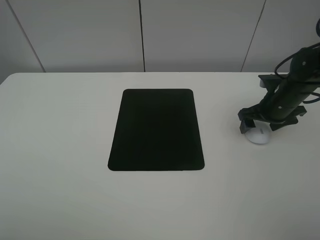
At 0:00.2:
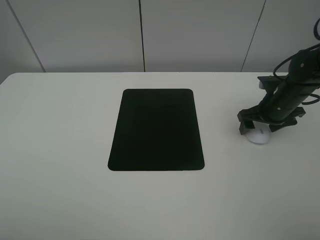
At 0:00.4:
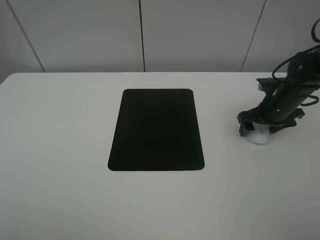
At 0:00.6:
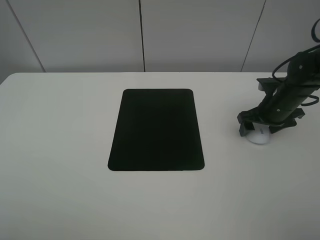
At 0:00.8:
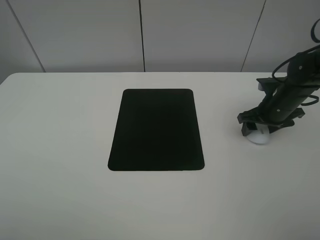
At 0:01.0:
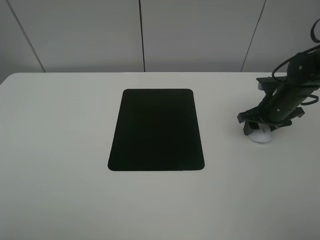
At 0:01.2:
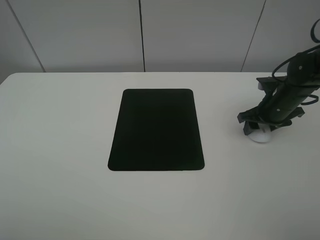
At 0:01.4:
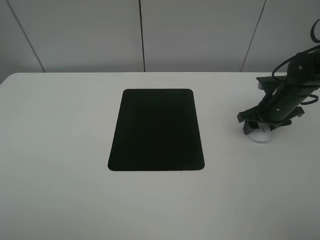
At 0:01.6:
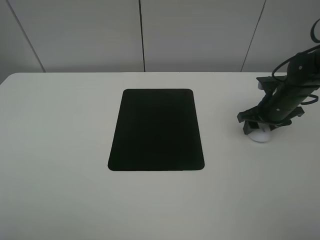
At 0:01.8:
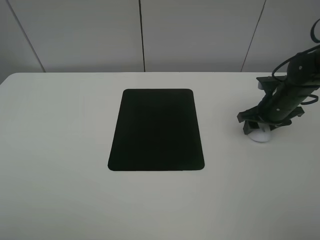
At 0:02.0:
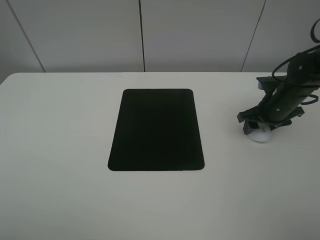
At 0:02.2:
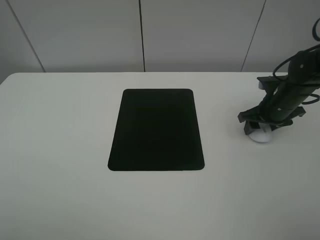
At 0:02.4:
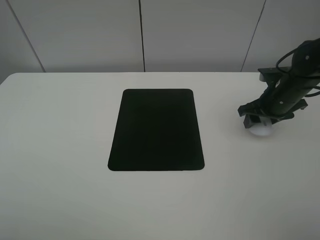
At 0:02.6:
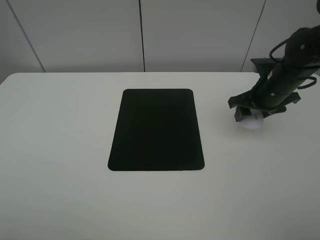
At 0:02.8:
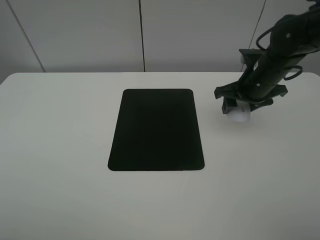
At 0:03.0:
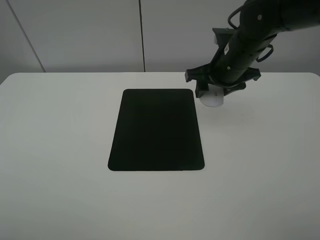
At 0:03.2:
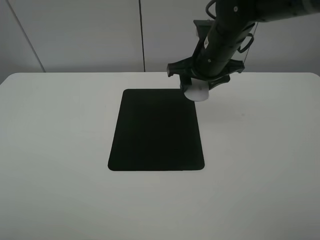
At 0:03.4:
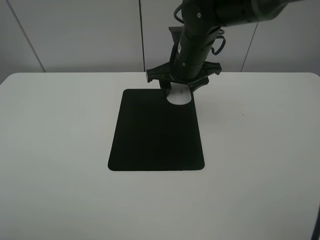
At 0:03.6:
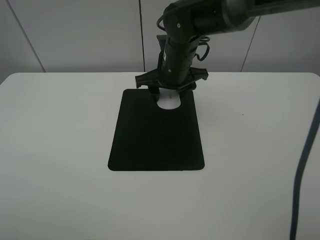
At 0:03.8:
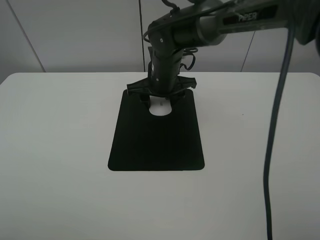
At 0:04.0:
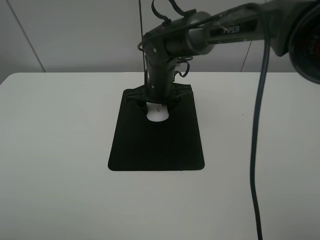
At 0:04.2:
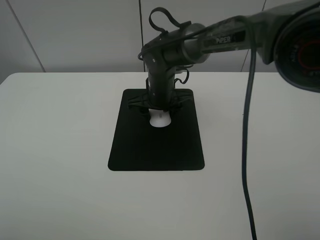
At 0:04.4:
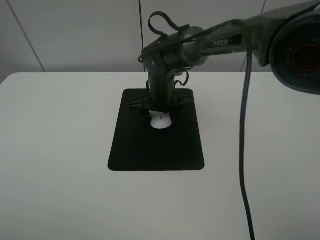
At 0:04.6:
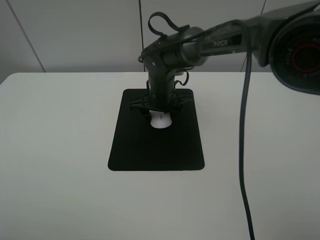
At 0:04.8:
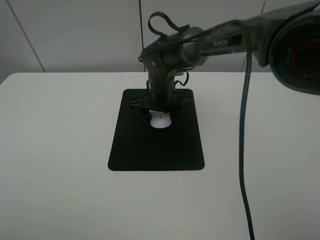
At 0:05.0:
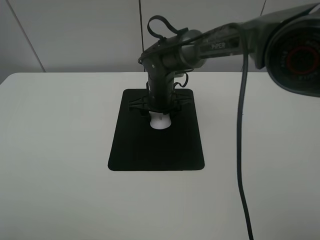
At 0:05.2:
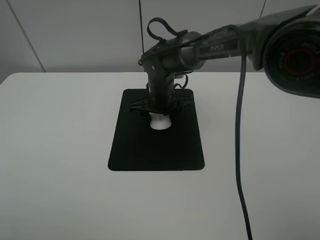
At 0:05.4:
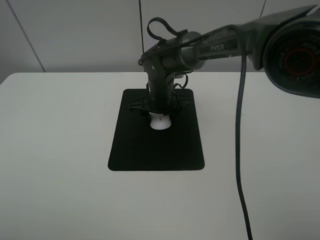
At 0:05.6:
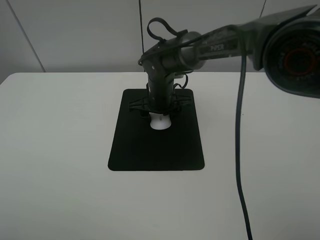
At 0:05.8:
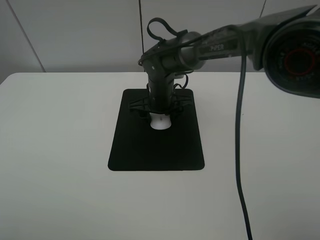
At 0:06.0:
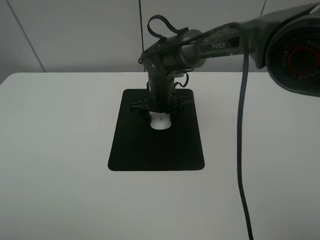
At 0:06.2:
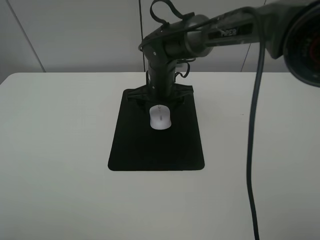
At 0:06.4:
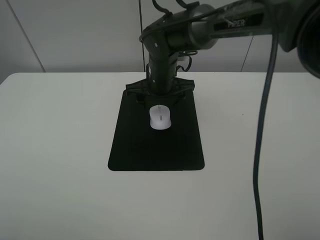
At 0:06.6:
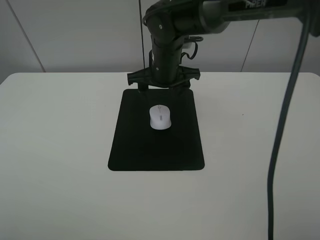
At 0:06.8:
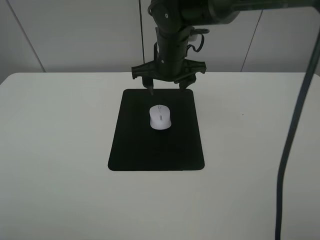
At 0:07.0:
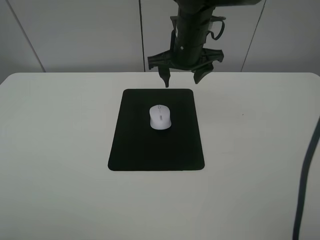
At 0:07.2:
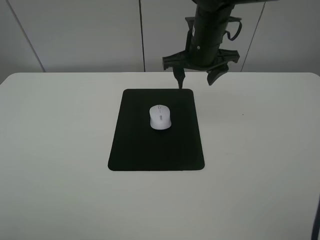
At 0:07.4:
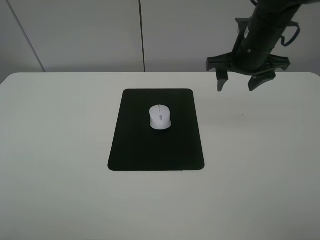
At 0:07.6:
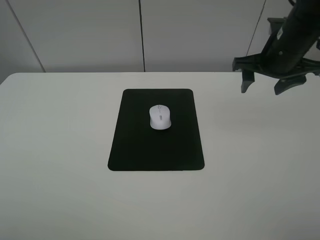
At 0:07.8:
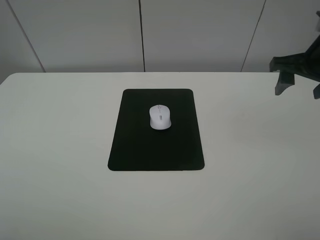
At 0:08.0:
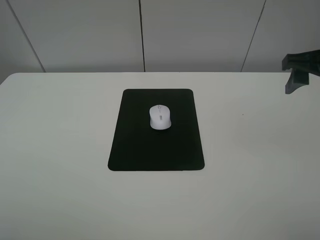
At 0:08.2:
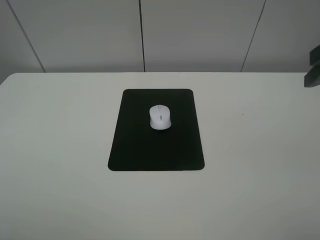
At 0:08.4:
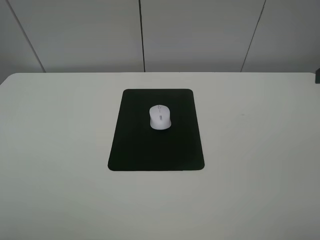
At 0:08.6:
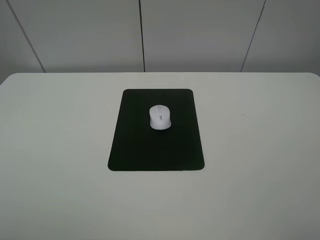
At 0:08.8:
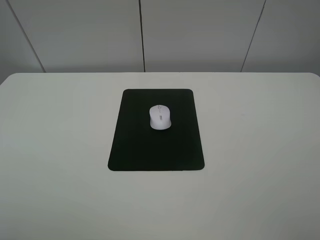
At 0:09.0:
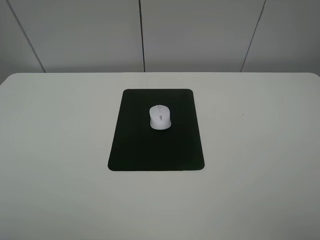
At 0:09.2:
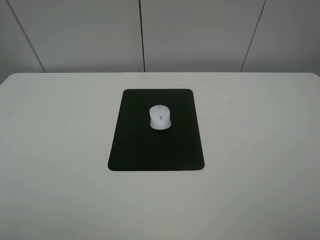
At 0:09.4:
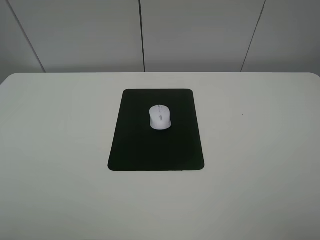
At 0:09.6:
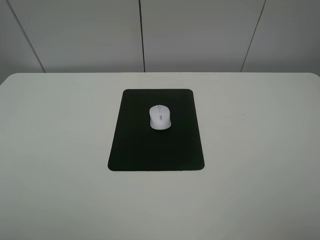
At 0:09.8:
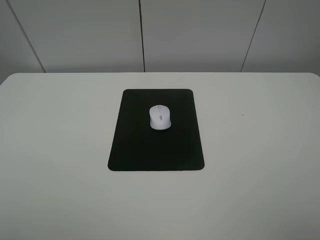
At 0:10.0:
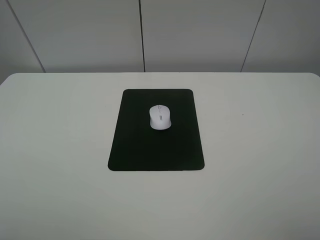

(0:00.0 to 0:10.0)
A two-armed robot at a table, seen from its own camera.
Step, 0:01.6 - 0:05.6: Place the mouse on the mouse mat with the right gripper.
0:00.0 - 0:01.4: The right gripper closes.
0:01.4 - 0:02.8: The right gripper moves to the left and upward, some 10 cm.
0:02.8 - 0:04.2: The right gripper travels to the left by some 20 cm.
0:04.2 - 0:05.8: The right gripper opens up.
0:05.8 - 0:07.2: The right gripper travels upward and to the right by roughly 15 cm.
0:07.2 - 0:08.6: The right gripper shifts about 35 cm backward, to the right and upward.

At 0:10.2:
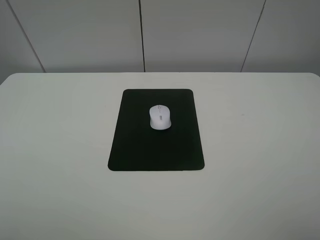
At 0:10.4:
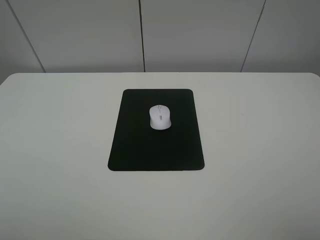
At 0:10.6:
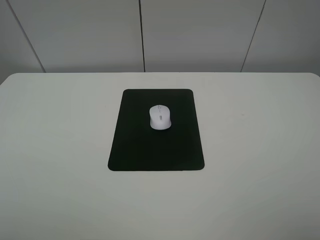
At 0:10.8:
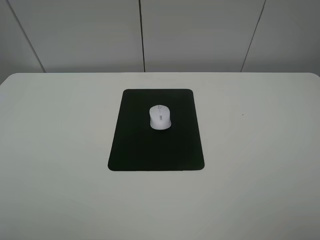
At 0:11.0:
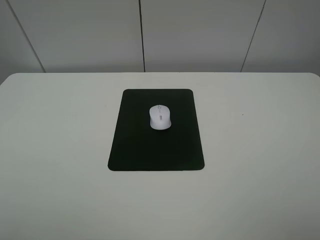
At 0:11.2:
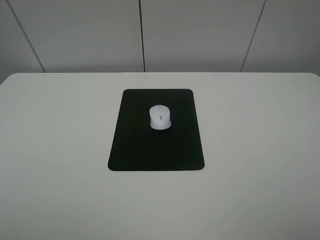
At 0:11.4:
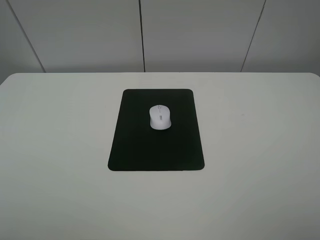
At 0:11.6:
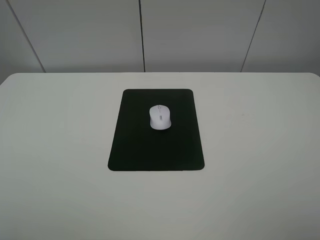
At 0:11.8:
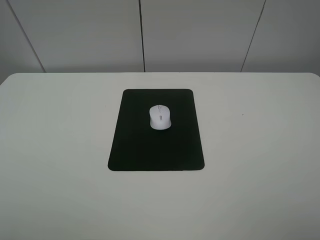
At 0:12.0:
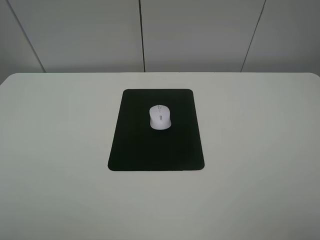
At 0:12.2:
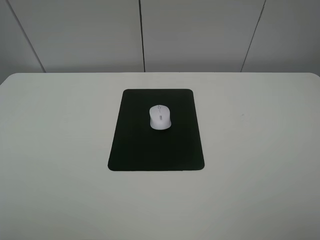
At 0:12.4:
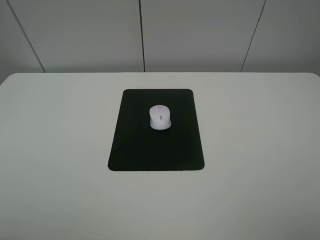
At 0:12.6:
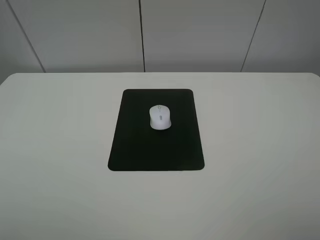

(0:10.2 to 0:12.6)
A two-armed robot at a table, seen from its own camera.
0:11.4 - 0:12.6: Neither gripper changes place.
